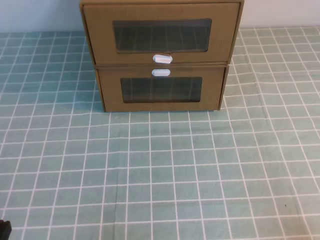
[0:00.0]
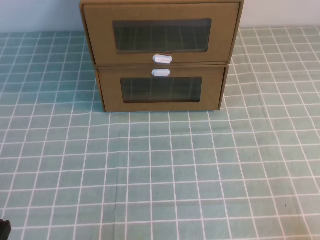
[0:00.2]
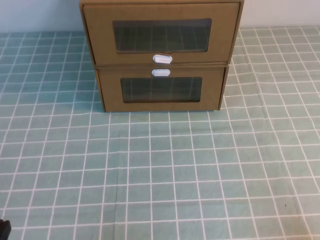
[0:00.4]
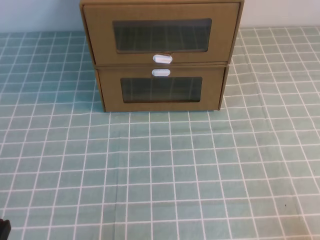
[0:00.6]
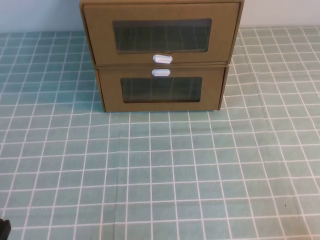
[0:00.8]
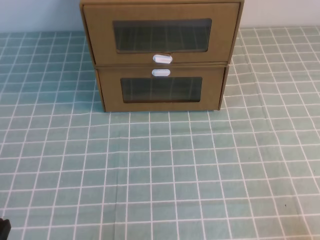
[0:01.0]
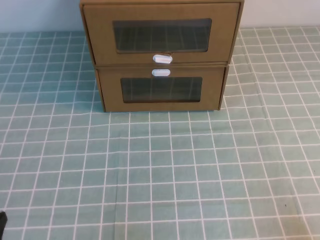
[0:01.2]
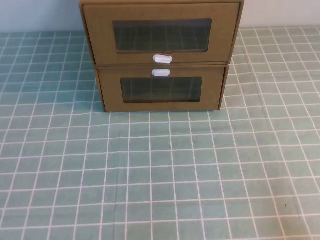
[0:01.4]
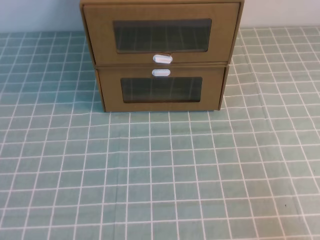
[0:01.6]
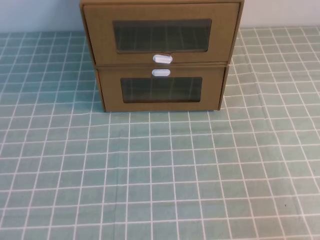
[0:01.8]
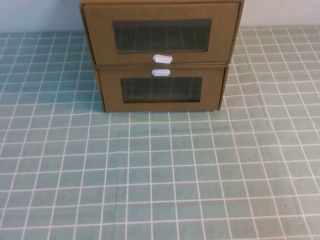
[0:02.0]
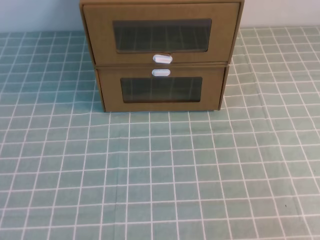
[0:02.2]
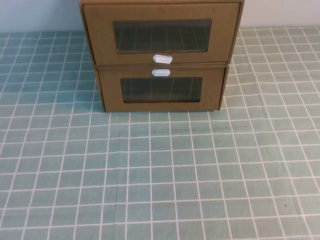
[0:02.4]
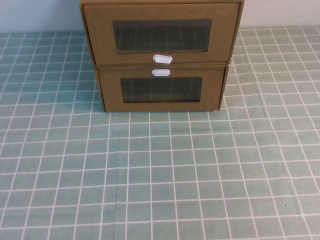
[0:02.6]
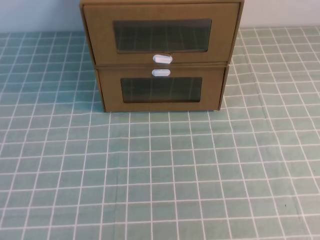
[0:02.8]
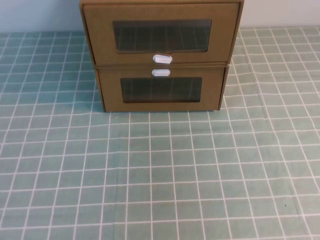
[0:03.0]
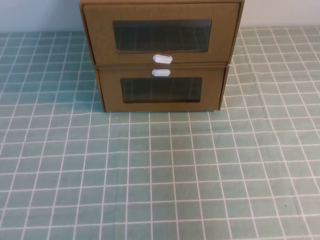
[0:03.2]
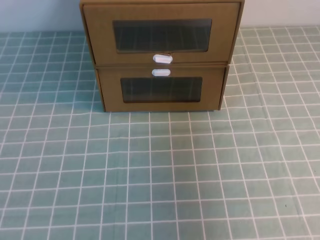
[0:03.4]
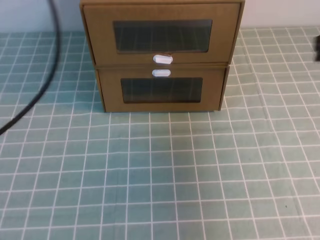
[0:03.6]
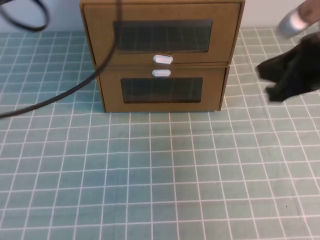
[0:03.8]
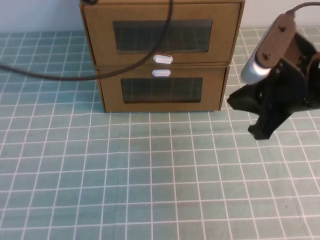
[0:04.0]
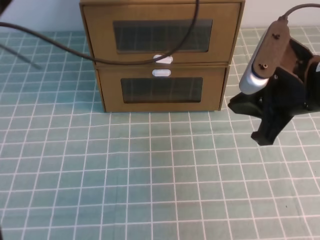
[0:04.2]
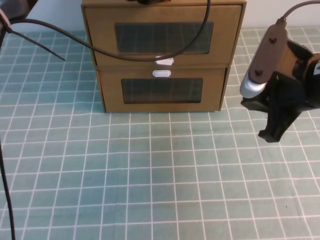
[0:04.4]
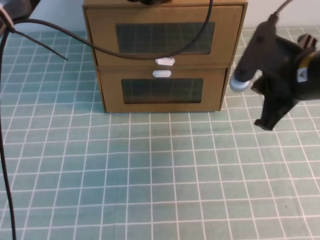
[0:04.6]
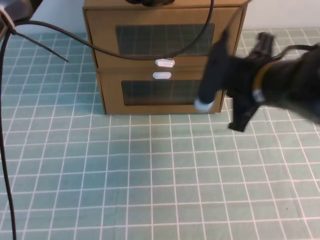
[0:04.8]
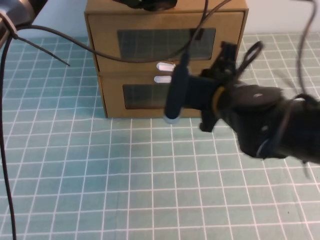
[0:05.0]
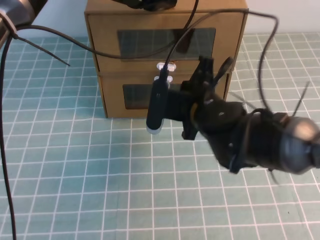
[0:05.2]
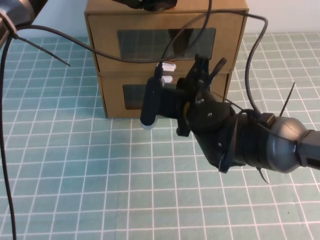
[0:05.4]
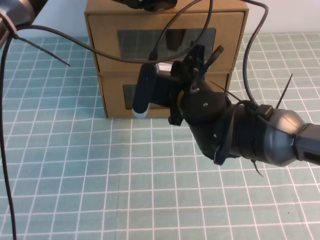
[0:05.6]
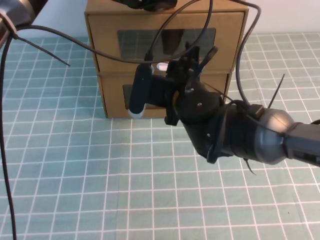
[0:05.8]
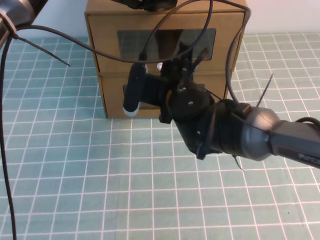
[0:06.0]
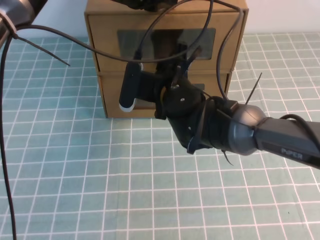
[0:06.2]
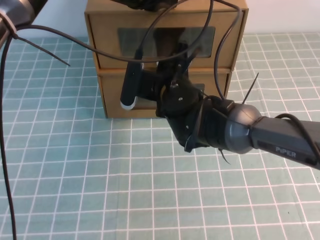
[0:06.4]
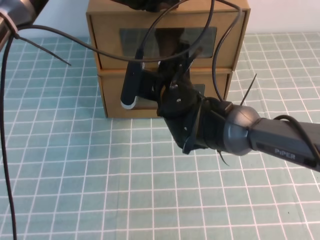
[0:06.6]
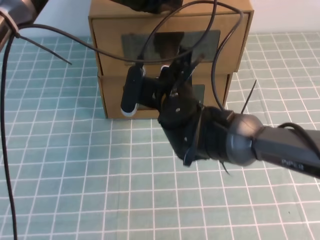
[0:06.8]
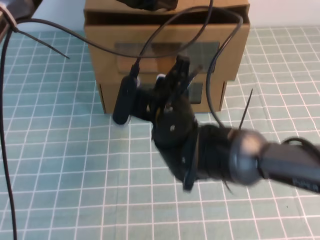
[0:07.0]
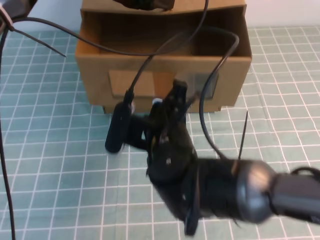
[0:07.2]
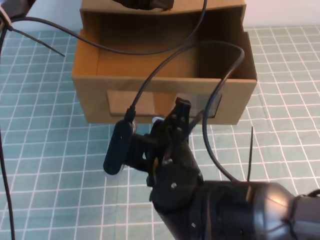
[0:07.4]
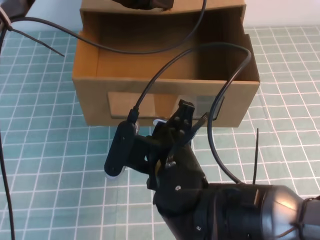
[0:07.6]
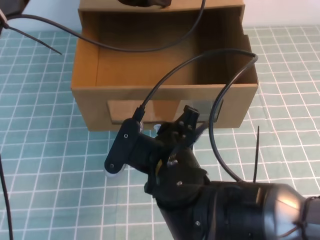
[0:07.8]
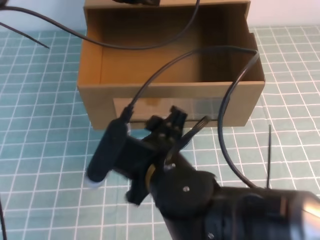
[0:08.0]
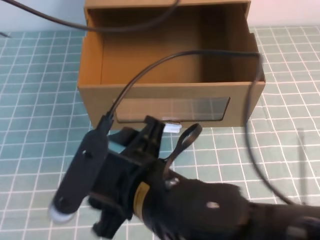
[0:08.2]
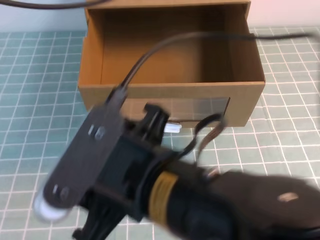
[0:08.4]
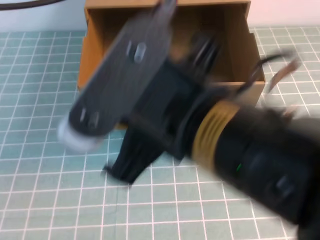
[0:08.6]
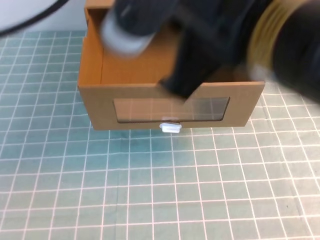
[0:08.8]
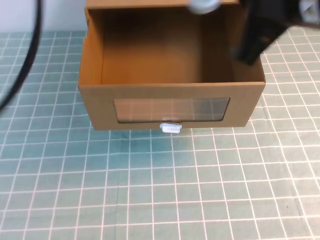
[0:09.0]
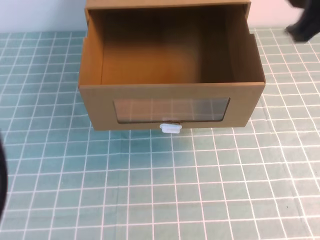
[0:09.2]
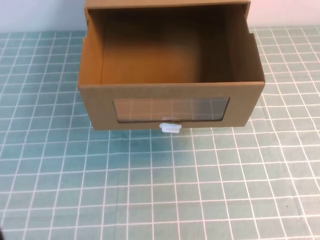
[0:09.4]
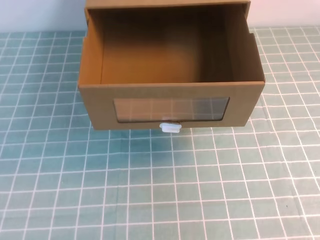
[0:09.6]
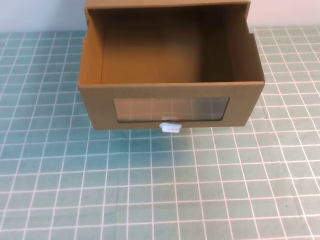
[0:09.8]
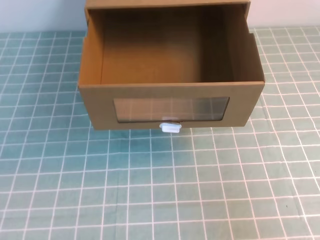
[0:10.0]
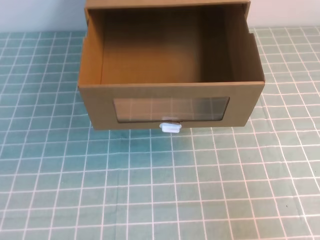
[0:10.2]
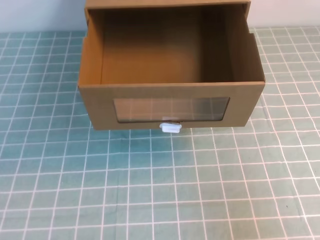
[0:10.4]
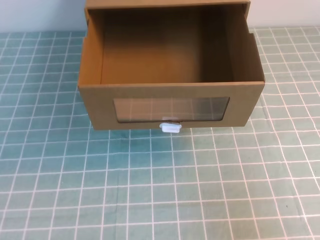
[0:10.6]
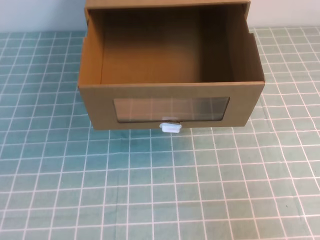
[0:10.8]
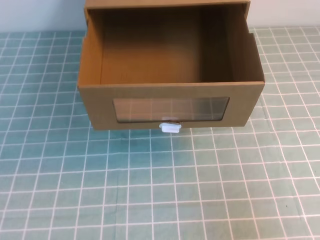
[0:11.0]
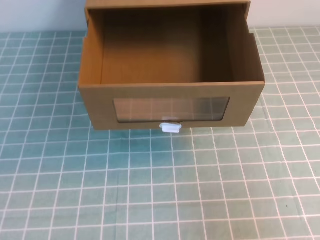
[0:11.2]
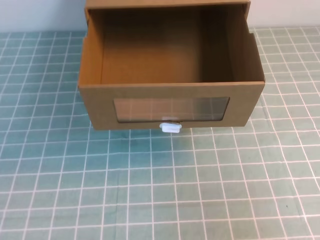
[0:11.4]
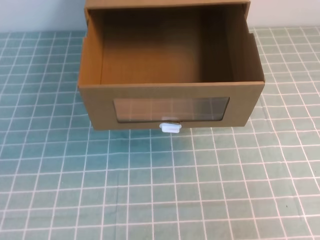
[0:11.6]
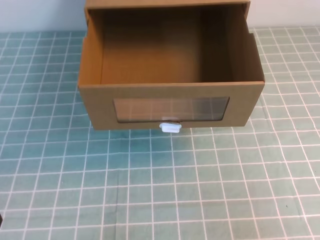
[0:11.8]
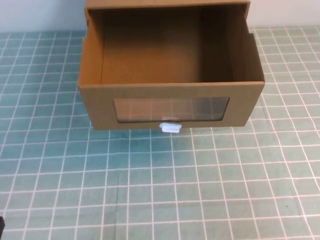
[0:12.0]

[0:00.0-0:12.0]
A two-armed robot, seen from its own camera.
Task of the whole recording: open the shoebox on the cyan tablecloth.
0:03.0 to 0:04.4: The left gripper travels forward and to the right by some 40 cm; the right gripper travels forward, downward and to the left by about 30 cm.
0:04.4 to 0:06.0: The right gripper is displaced to the left, forward and downward by about 20 cm, and opens.
0:06.0 to 0:07.6: The right gripper travels backward by about 15 cm, and closes its fingers.
0:07.6 to 0:09.0: The right gripper goes roughly 25 cm upward and to the right, and opens, then closes again. Meanwhile the left gripper goes some 35 cm backward, upward and to the left.
0:09.0 to 0:10.4: The right gripper shifts approximately 25 cm downward, to the right and backward; the left gripper is displaced downward by some 25 cm.

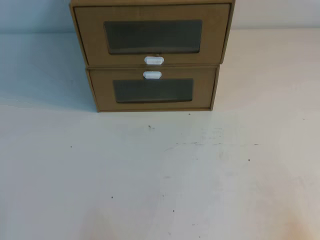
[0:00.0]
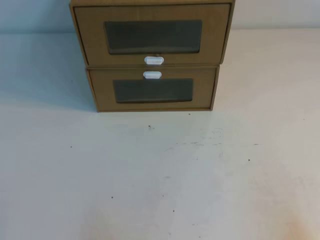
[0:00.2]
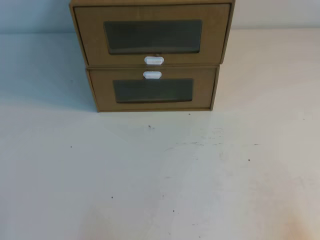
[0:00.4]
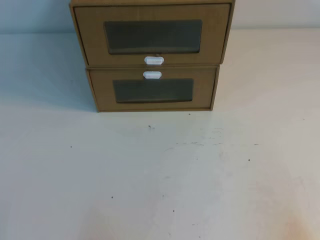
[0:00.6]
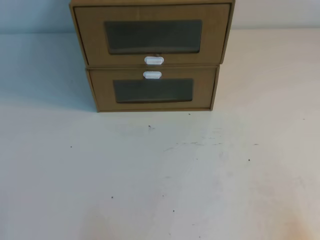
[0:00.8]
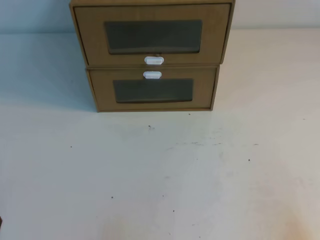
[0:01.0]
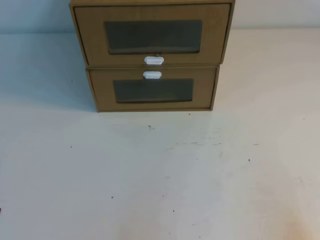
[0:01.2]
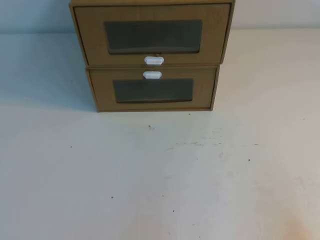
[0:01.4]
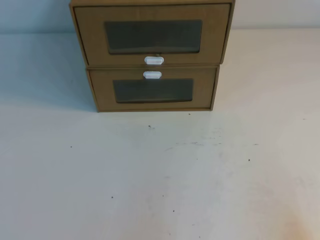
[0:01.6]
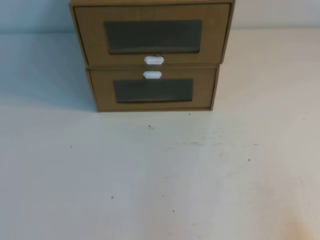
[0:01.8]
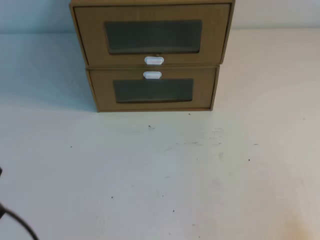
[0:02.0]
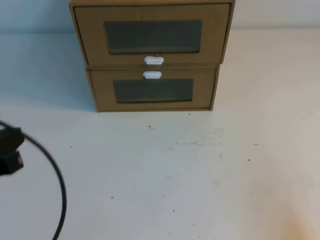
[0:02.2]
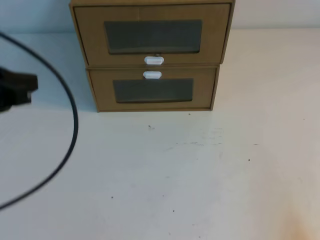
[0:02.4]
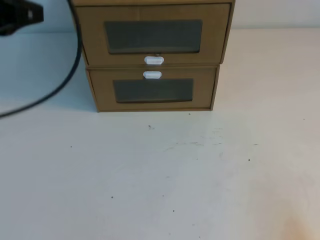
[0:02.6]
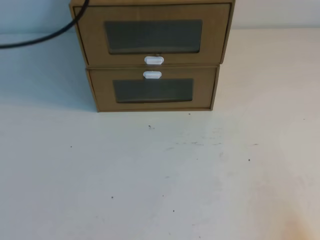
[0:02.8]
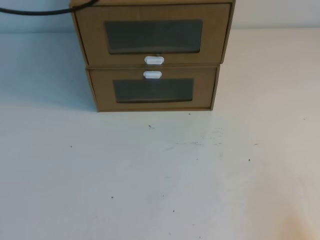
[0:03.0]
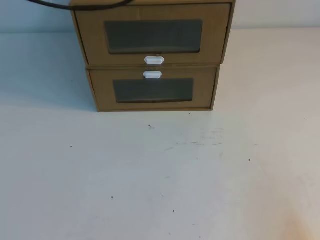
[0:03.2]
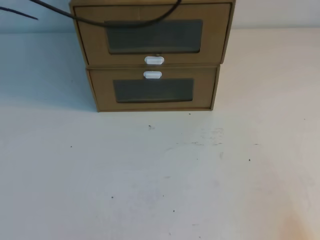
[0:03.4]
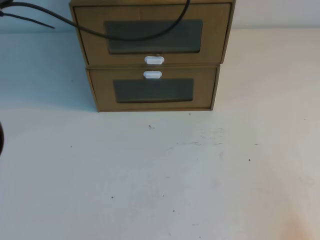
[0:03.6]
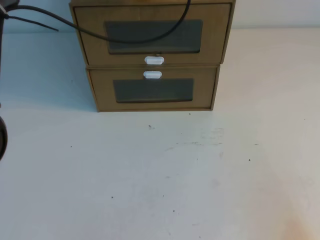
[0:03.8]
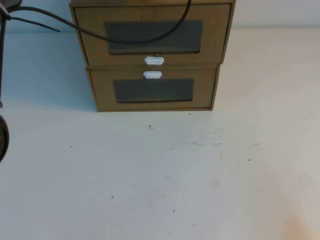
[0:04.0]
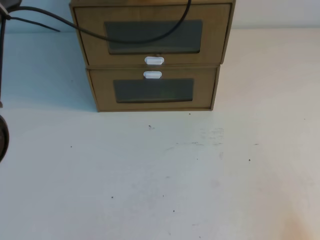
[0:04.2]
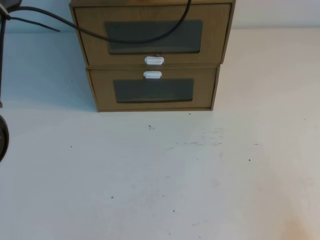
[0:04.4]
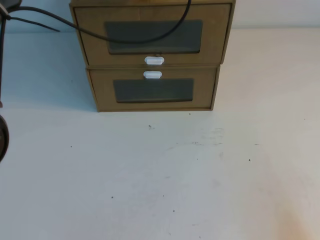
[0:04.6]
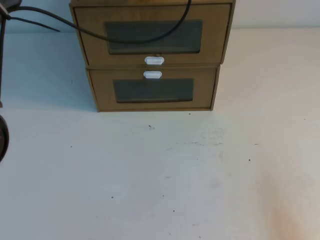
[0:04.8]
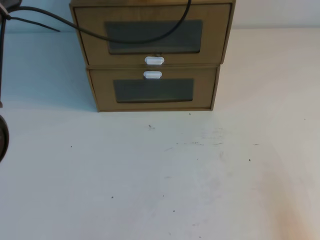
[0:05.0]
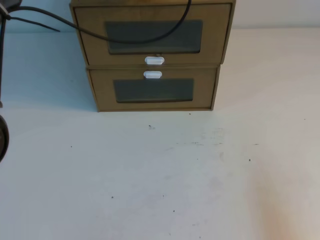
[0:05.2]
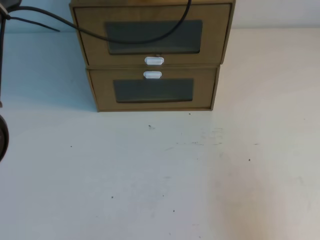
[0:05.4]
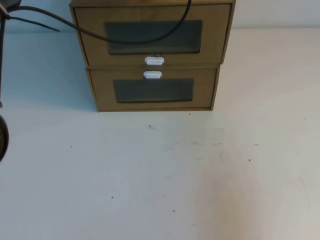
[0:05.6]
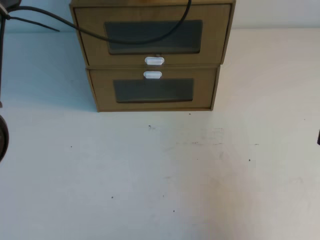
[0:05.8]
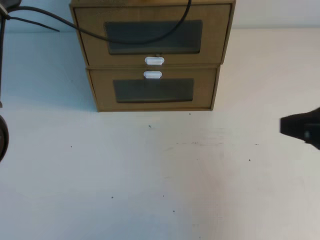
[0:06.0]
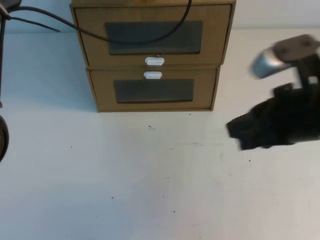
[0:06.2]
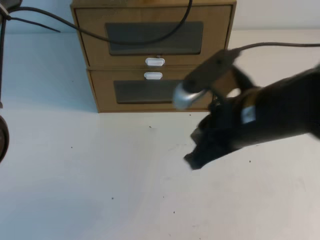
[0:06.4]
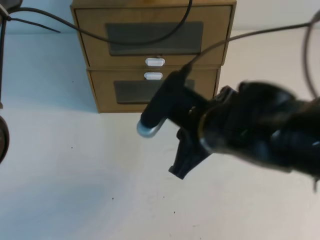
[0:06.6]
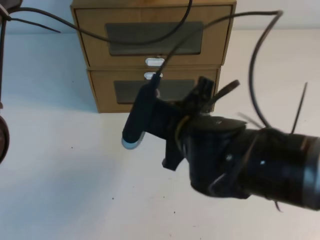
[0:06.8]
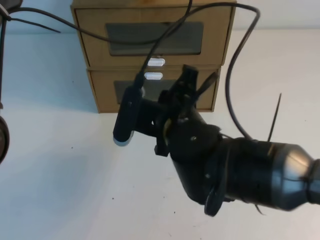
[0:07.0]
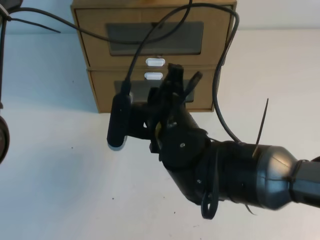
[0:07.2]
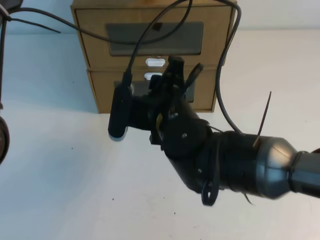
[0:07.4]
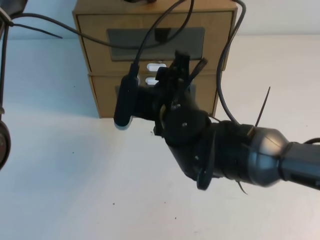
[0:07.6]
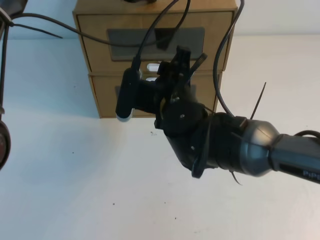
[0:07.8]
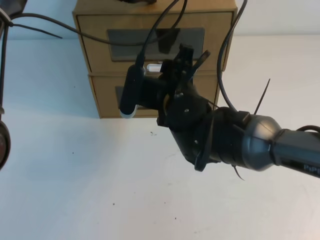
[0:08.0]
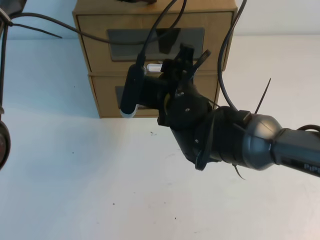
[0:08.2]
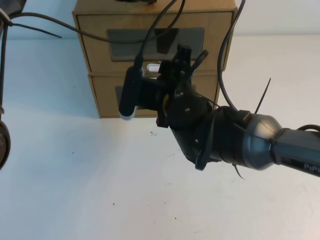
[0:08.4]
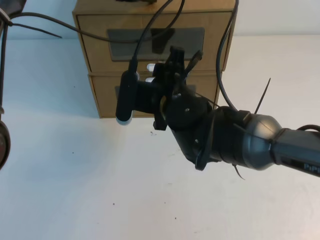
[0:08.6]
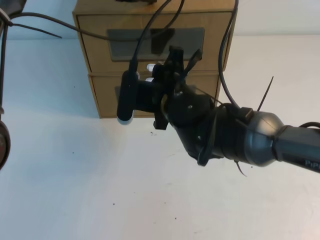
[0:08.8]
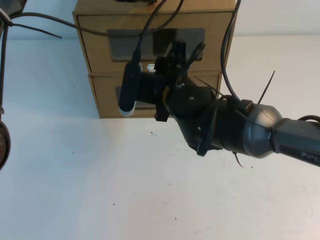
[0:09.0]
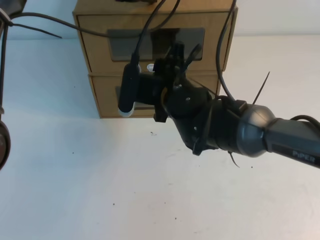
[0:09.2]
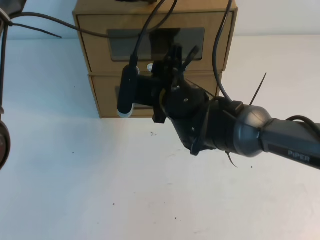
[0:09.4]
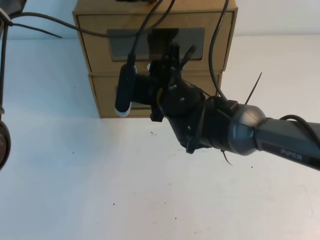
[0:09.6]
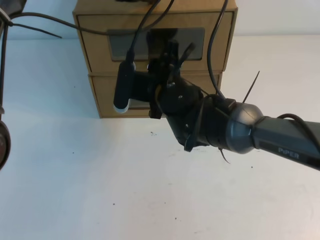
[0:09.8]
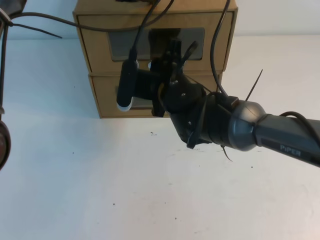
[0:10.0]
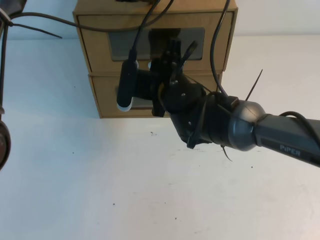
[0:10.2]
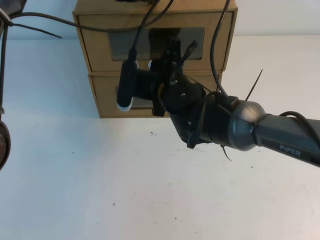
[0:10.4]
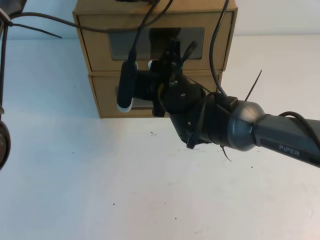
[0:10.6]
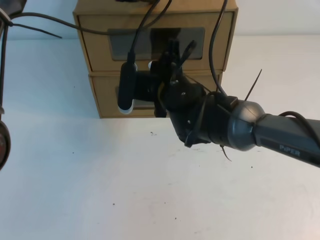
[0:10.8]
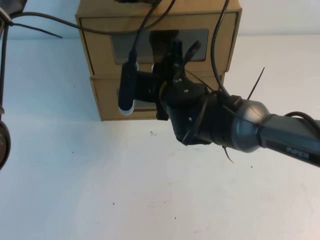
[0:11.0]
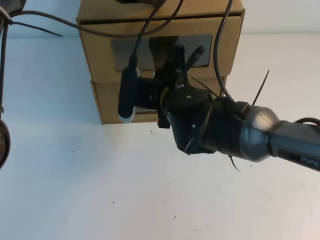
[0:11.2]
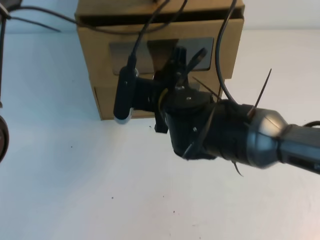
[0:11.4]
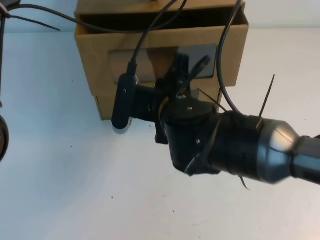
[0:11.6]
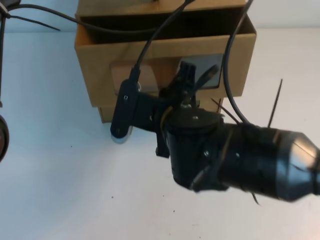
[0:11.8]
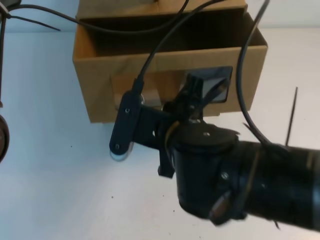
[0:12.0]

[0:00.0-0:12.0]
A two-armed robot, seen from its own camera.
Task of the whole recording: open the shoebox on the table.
0:03.0 to 0:04.4: The left gripper travels forward, to the right and downward by some 15 cm.
0:04.4 to 0:06.0: The right gripper shifts some 20 cm upward and forward.
0:06.0 to 0:07.6: The right gripper moves to the left and forward, about 30 cm, and opens.
0:07.6 to 0:09.0: The right gripper moves forward, about 5 cm.
0:09.0 to 0:10.4: The right gripper closes.
0:10.4 to 0:12.0: The right gripper is displaced backward by some 15 cm.
